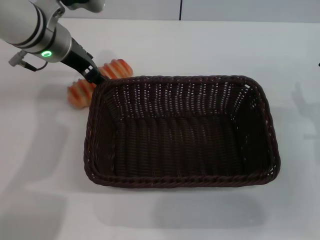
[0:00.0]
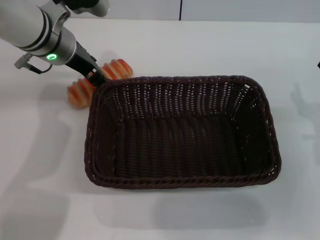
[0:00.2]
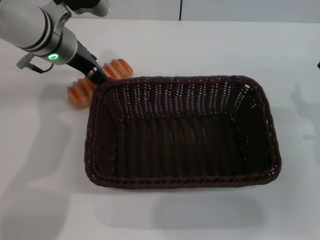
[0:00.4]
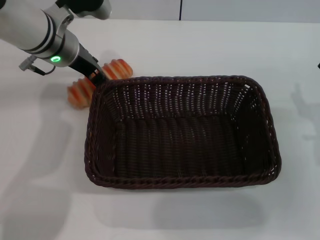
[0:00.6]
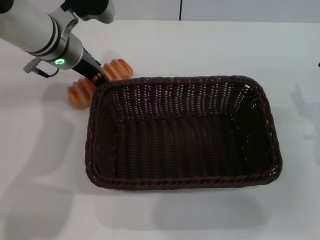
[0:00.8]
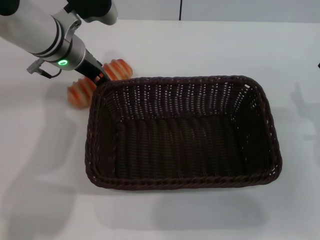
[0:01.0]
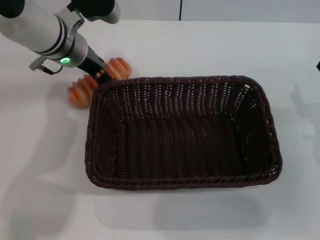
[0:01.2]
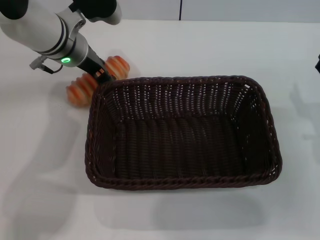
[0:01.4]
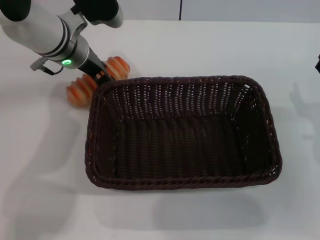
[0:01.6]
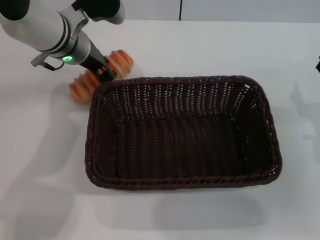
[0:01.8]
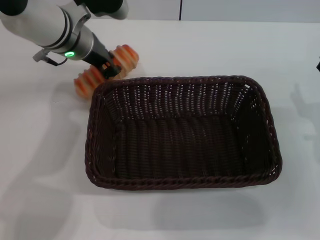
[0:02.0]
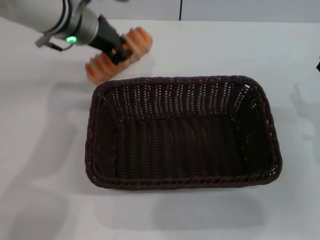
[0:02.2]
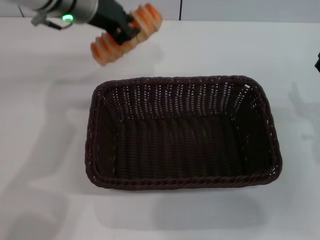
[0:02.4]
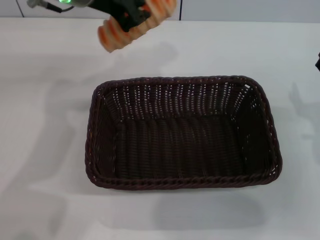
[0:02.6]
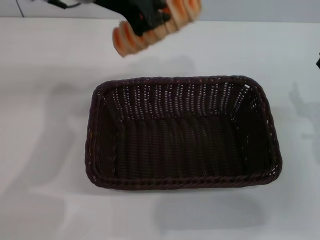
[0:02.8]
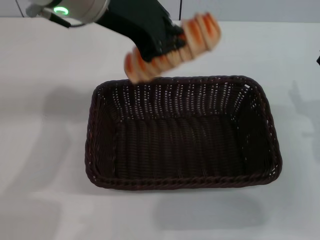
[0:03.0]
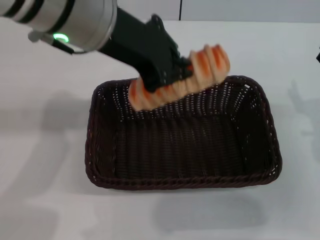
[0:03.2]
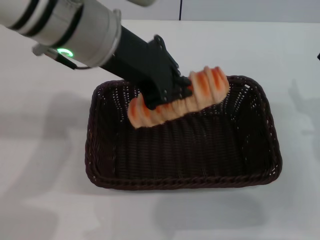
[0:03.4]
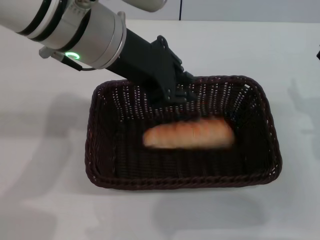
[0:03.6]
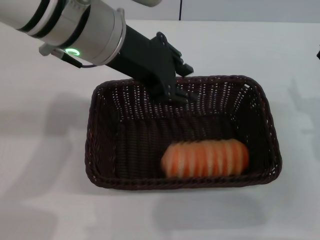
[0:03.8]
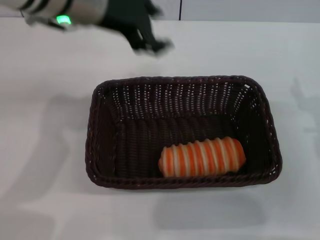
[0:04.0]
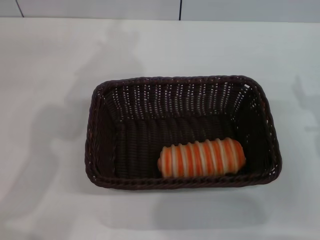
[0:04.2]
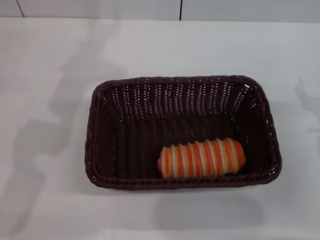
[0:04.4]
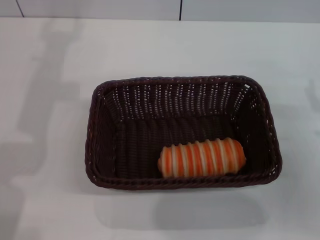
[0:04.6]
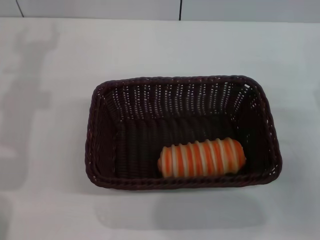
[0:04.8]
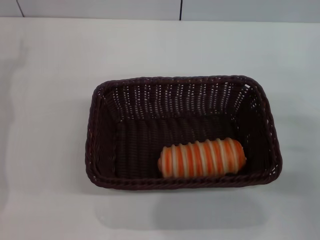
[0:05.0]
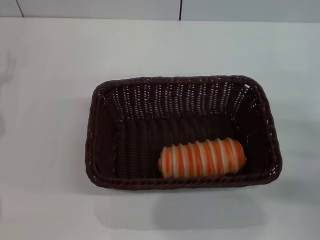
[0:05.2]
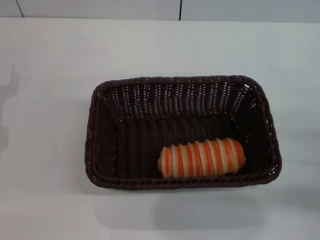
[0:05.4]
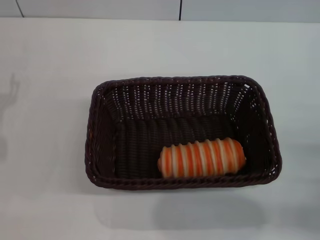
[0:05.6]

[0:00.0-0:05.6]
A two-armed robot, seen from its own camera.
Step, 0:00.0 to 0:02.4: Pick up the long bread with the left gripper.
Step, 0:02.6 to 0:03.8: Place the long bread into the dark basket with the left gripper.
0:00.0 to 0:01.4: The grippers stay close to where they were, moving slightly.
0:01.4 to 0:02.8: The left gripper goes about 15 cm upward and backward, and closes its fingers.
0:02.8 to 0:04.2: The left gripper opens up.
0:04.2 to 0:05.6: The right gripper is displaced backward and downward by some 10 cm.
